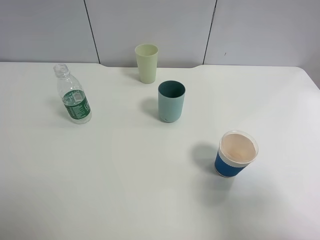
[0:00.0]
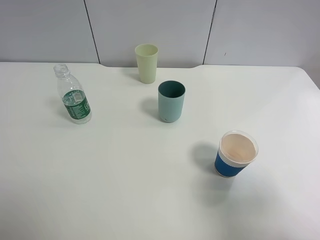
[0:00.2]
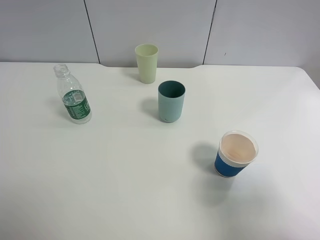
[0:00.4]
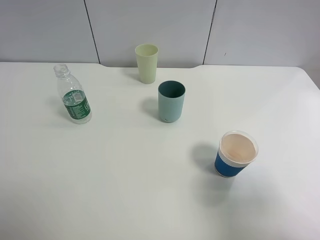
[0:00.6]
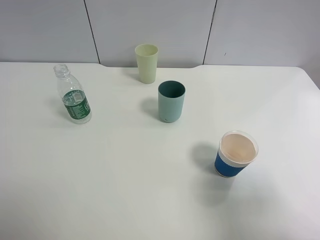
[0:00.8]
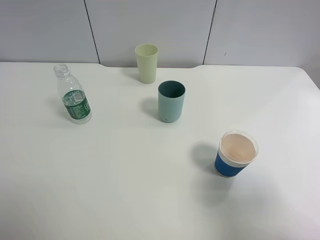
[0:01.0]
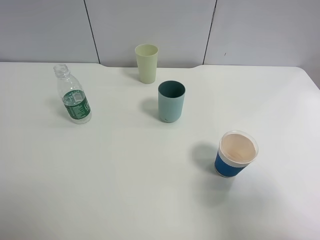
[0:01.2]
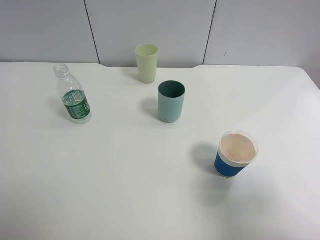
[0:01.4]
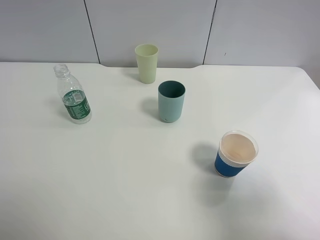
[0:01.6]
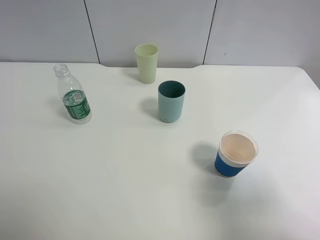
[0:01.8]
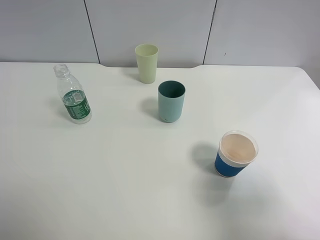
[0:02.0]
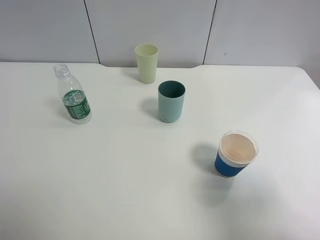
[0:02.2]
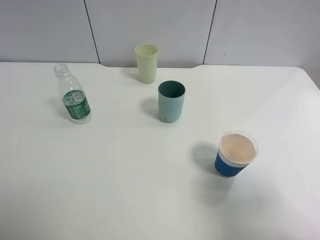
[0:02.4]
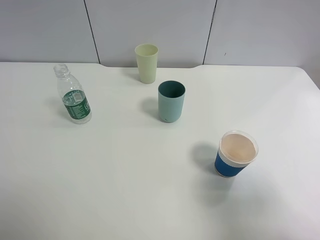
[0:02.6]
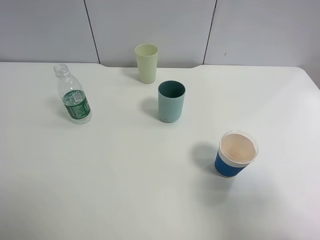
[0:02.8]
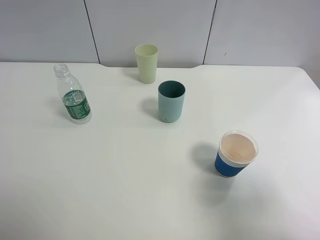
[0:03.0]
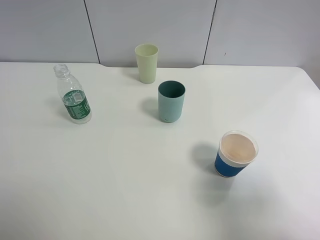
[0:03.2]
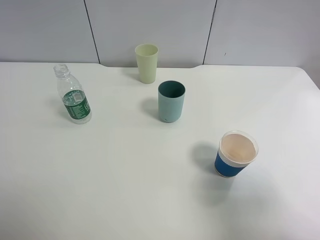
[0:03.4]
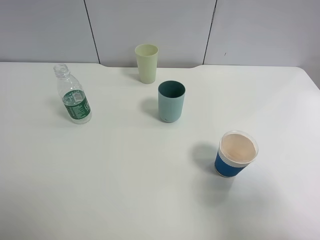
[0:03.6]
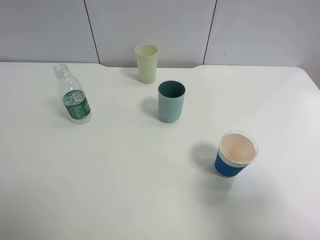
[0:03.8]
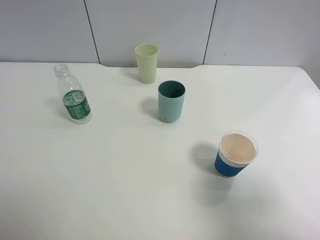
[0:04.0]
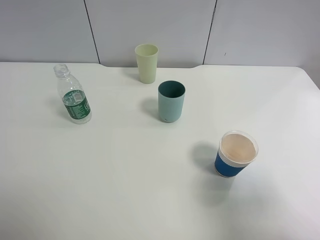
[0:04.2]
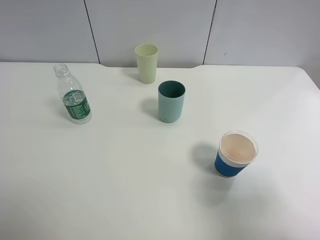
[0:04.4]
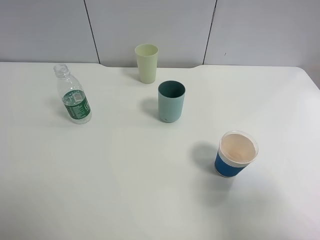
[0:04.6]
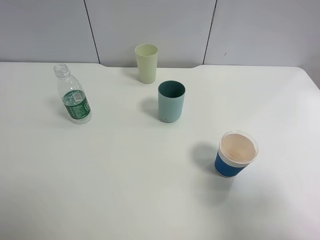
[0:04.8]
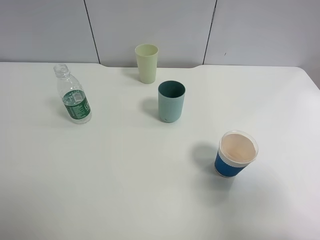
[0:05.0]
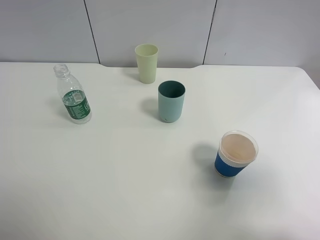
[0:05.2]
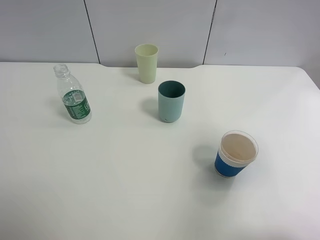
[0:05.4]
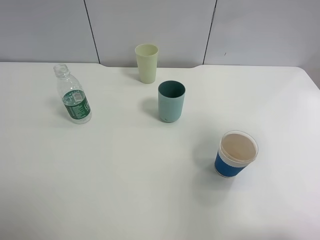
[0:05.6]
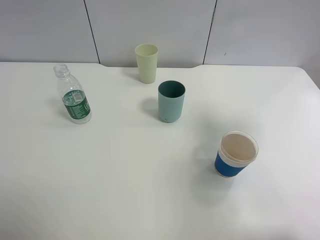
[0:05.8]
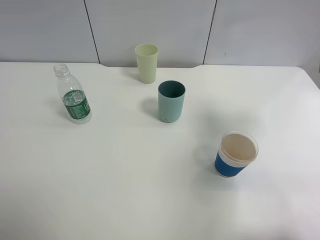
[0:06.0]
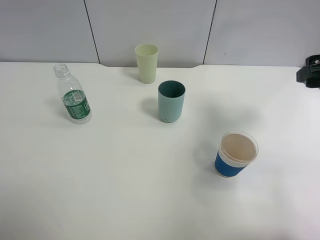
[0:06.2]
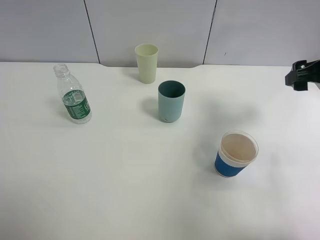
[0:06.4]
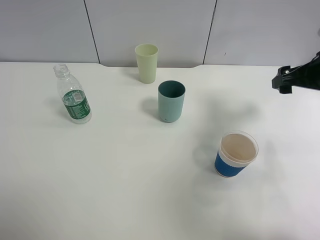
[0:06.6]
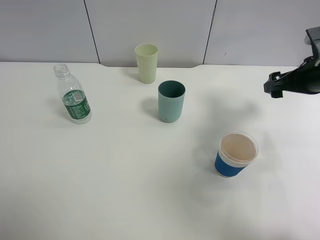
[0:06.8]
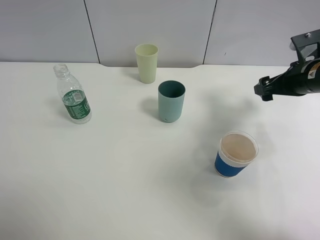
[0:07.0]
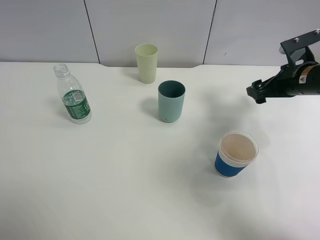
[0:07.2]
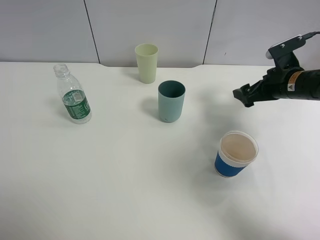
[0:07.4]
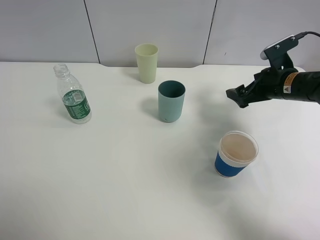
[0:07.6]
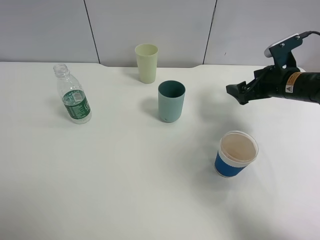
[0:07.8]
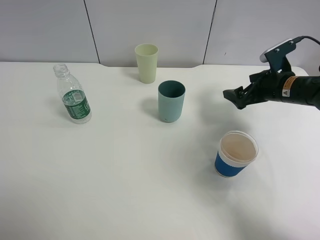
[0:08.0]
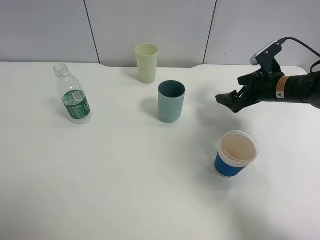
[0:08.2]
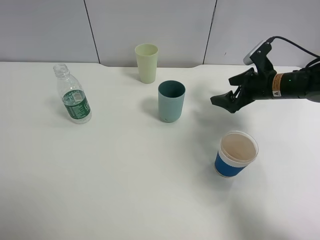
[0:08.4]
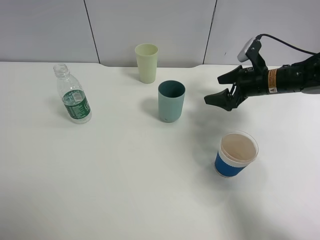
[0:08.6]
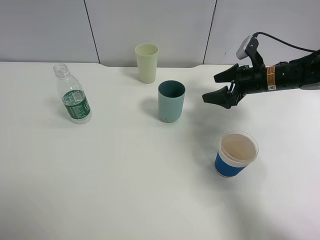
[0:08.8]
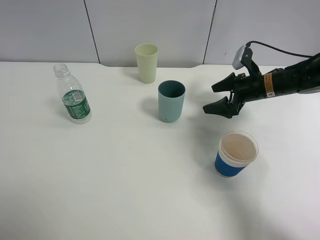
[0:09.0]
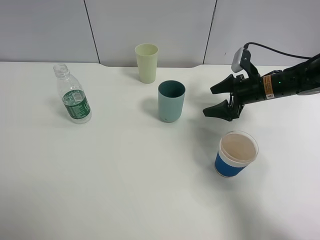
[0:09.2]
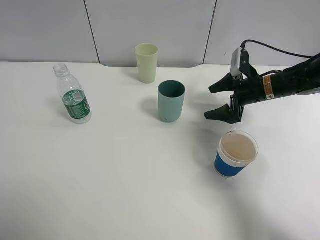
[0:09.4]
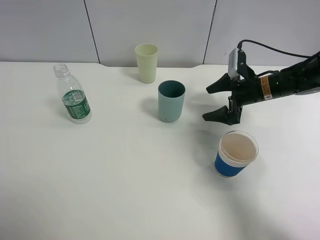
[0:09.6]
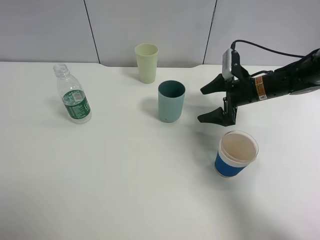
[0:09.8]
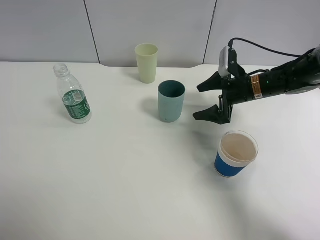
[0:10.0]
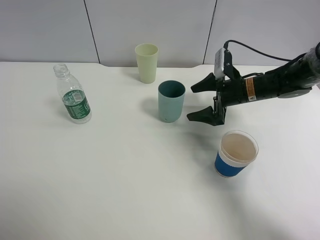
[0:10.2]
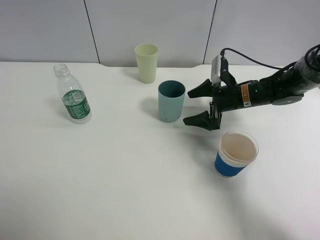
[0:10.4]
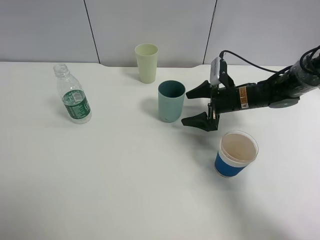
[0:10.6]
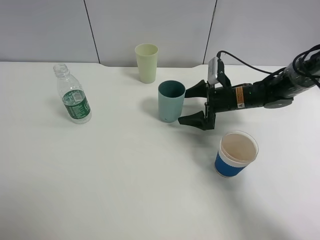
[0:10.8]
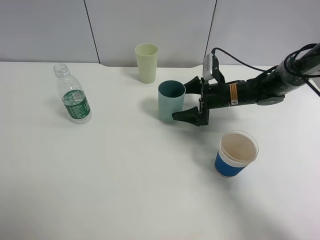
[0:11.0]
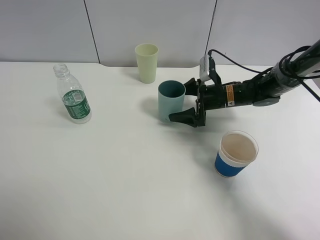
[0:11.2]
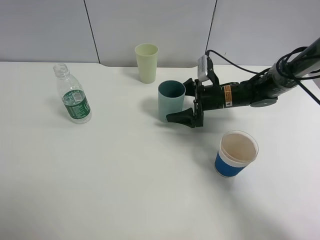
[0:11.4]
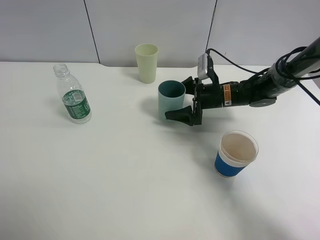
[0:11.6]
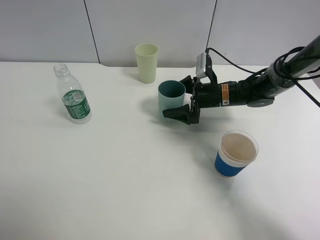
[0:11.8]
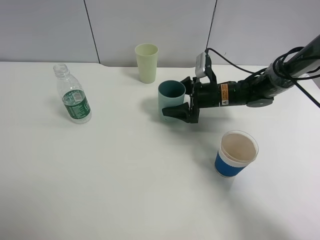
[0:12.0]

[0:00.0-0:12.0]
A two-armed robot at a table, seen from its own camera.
Task of the whole recording: use a clamp to hold the bottle of the drink, pour the beverage into a random cup, then clamp the cup containing the drink and pour the drink into another random cup.
0:01.6 to 0:04.4: The two grippers keep their place.
0:04.4 to 0:06.0: The right gripper heads forward, covering roughly 20 cm.
0:06.0 to 0:07.6: The right gripper heads downward and forward, covering about 20 cm.
0:07.6 to 0:09.0: The right gripper ends up roughly 5 cm from where it was.
0:09.0 to 0:10.4: The right gripper moves to the left, approximately 5 cm.
0:10.4 to 0:12.0: The right gripper moves some 5 cm, and closes its fingers.

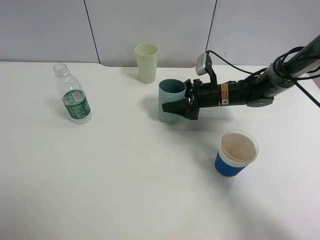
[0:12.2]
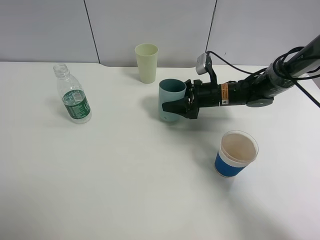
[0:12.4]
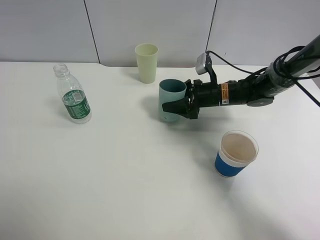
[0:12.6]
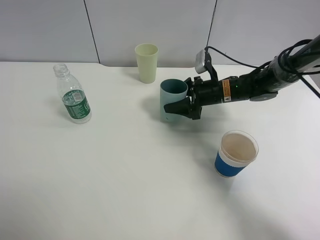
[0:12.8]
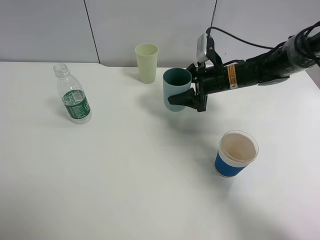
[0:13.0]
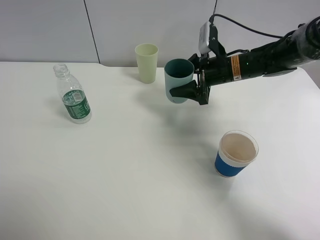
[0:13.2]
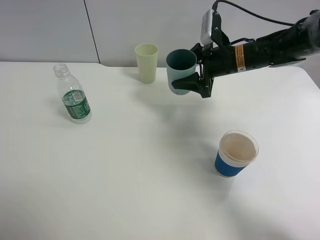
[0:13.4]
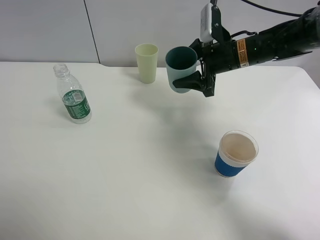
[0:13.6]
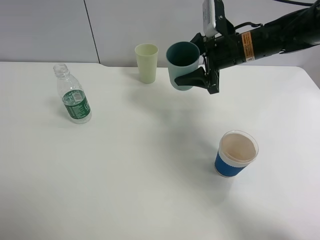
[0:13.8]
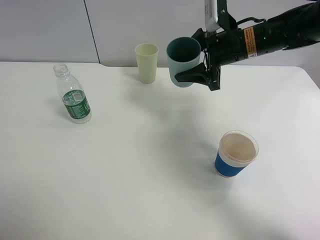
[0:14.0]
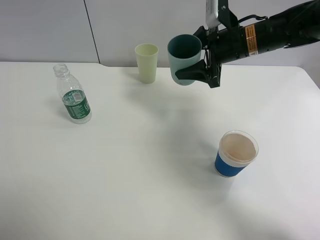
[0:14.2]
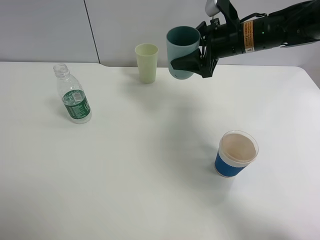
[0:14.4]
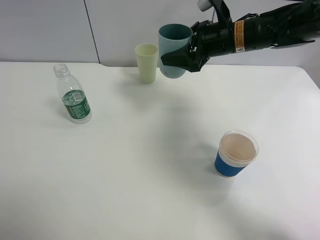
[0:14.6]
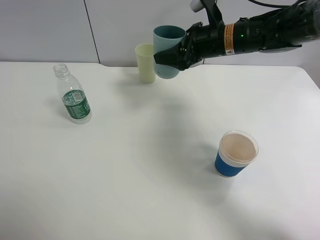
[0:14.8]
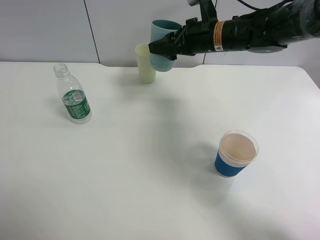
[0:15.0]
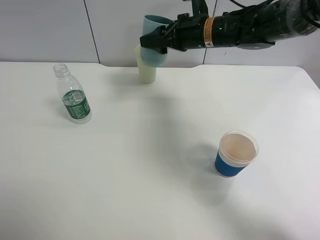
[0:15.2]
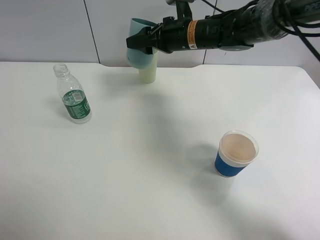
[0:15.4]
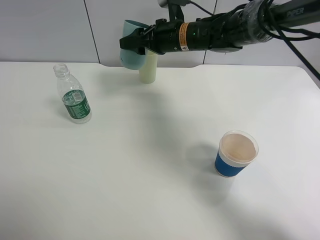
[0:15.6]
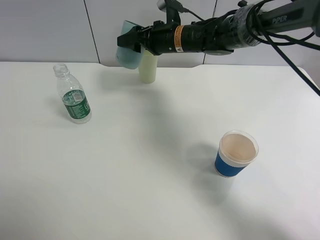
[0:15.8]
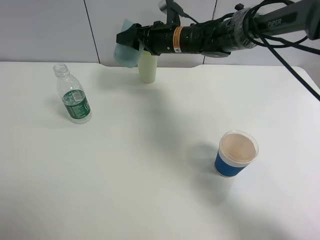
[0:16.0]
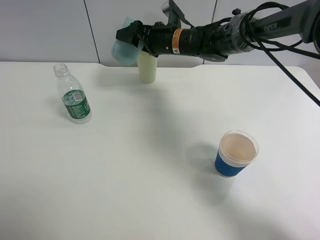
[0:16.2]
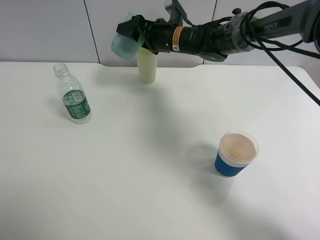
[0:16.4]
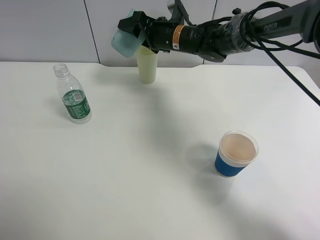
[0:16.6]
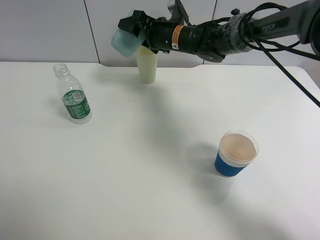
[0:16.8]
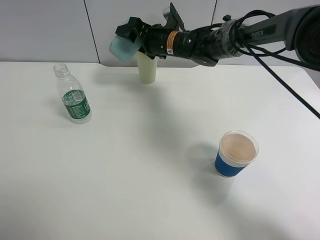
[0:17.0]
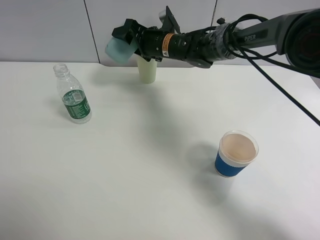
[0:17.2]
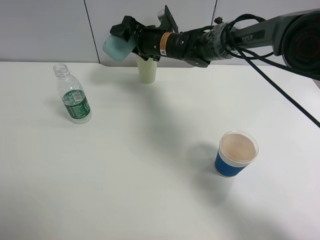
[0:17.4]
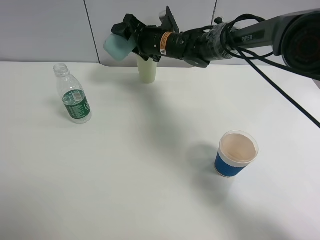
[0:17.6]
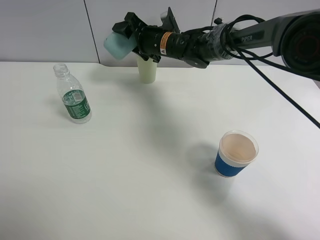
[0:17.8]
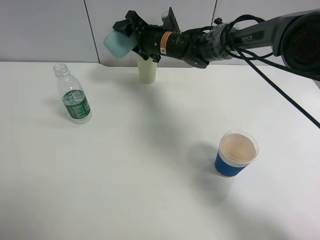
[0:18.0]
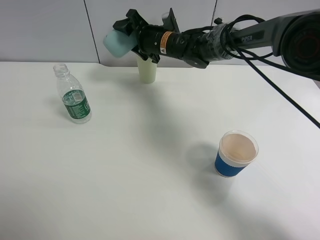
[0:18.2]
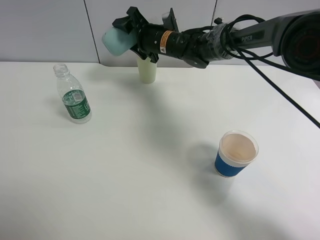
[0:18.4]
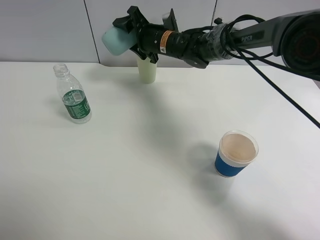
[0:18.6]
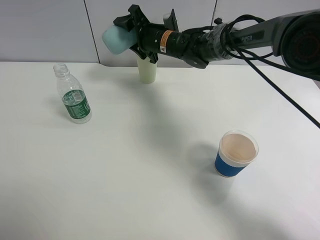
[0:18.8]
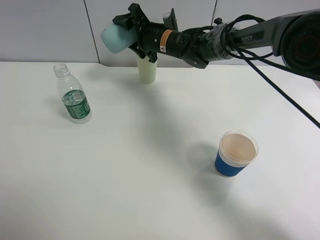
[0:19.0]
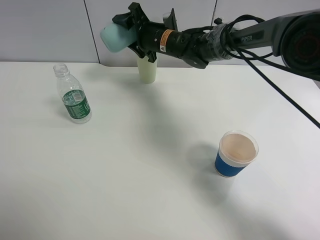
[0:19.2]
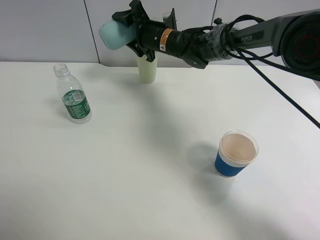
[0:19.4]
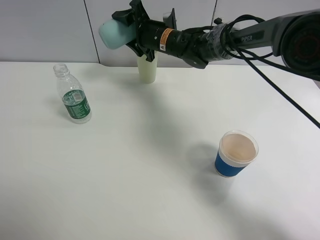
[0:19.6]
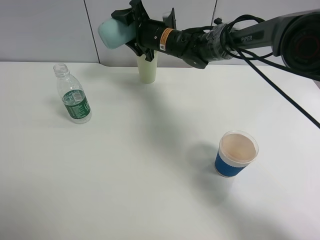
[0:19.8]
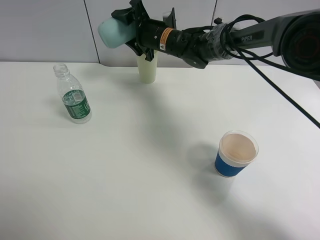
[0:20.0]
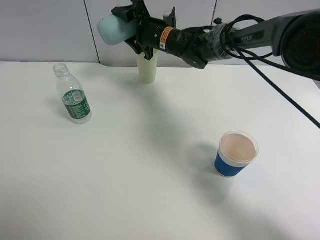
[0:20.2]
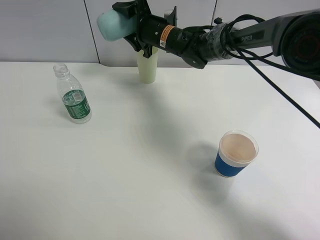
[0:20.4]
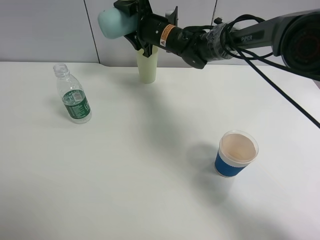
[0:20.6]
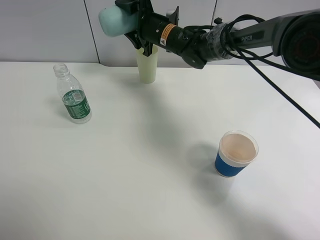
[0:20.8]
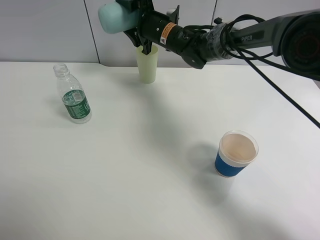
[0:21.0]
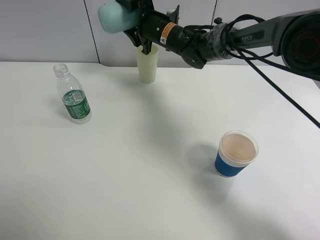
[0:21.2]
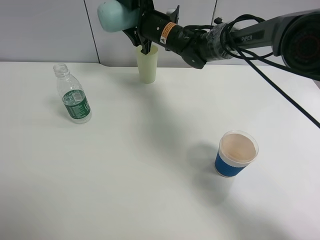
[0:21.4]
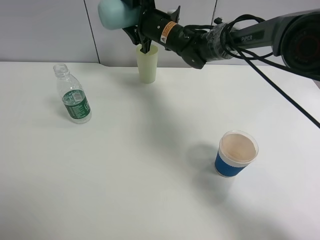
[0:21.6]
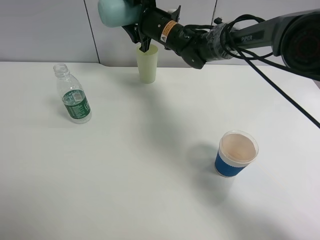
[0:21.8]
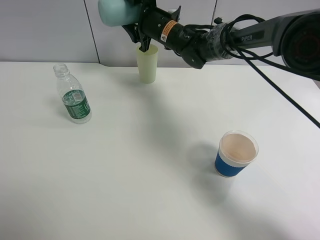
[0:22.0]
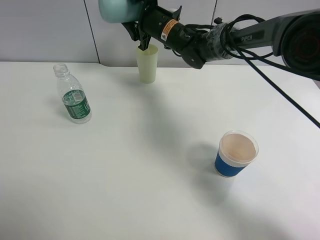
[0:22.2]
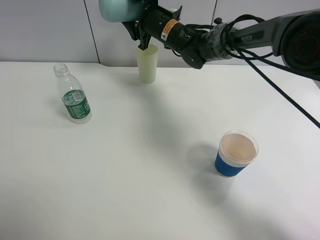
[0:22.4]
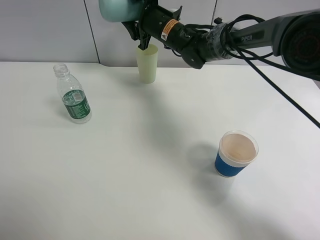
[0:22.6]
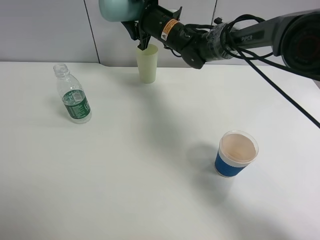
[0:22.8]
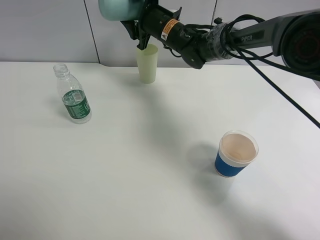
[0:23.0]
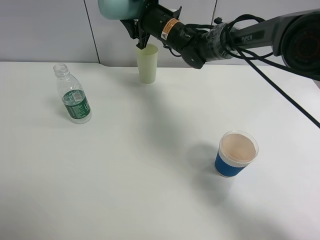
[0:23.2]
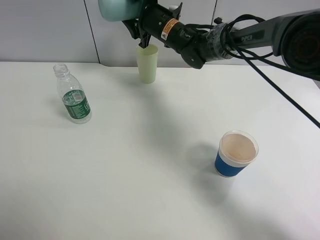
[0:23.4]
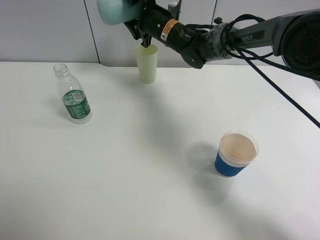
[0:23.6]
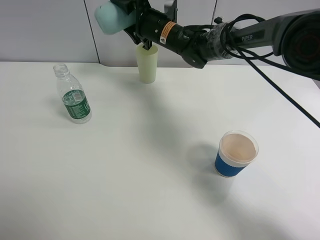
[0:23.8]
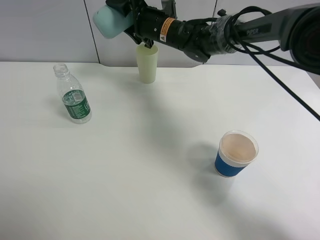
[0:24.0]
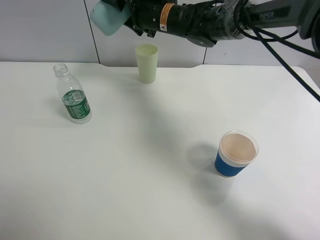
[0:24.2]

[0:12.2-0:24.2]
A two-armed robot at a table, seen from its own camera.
Task of the whole recording: use a clamp to hold the bottle of the drink, pour the beverage into a random cup, then clamp the cup containing the drink and pour the drink into another random cup.
Step, 0:12.6 to 0:23.8: Pour water into the green plastic cup with right gripper.
0:12.2 to 0:13.8: The right gripper goes roughly 15 cm upward.
0:13.8 to 0:15.2: The right gripper moves to the left, about 5 cm.
0:15.2 to 0:16.6: The right gripper travels to the left by some 5 cm.
0:16.6 to 0:18.2: There are only small adjustments of the grippers.
0:18.2 to 0:19.8: The grippers stay close to where they were, moving slightly.
0:19.8 to 0:21.2: The grippers stay close to where they were, moving slightly.
0:21.2 to 0:22.6: The grippers stay close to where they were, moving slightly.
